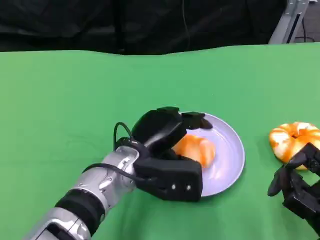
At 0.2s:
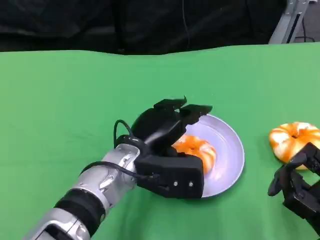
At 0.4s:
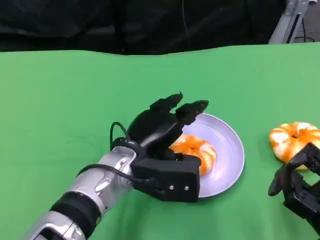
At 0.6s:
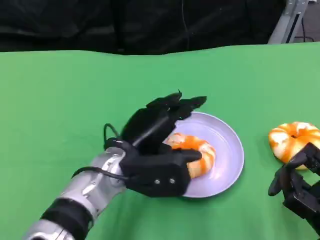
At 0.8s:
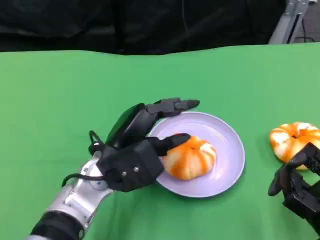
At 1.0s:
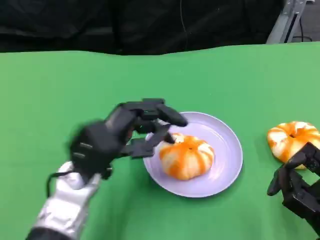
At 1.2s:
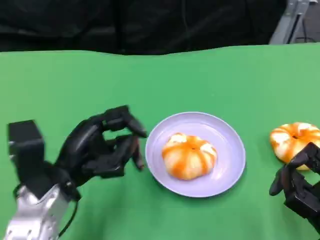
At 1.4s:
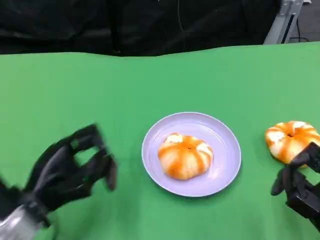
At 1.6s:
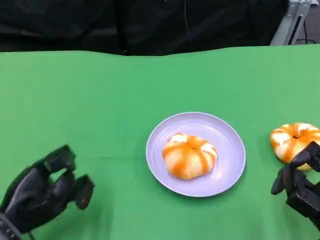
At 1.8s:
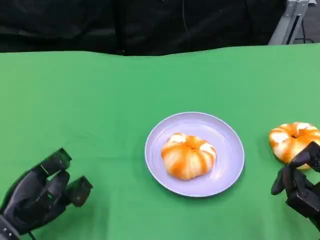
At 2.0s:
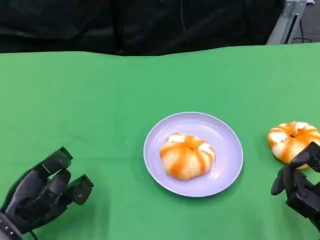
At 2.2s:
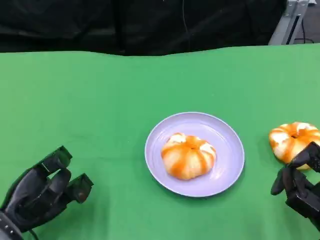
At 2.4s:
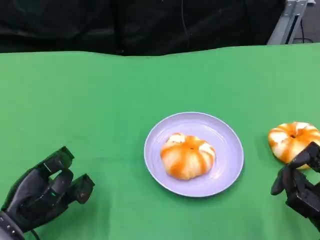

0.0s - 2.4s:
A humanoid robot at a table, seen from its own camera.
Task of the whole recording: Grasp the bread from the table and place it into the plate.
0.0s - 1.2s: The left hand is displaced to the left by approximately 10 cm.
1.2s - 2.4s: The left hand moves to the left and downward, approximately 10 cm.

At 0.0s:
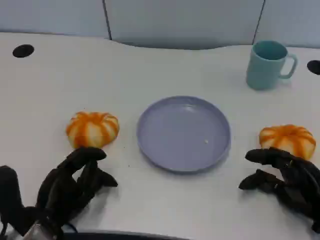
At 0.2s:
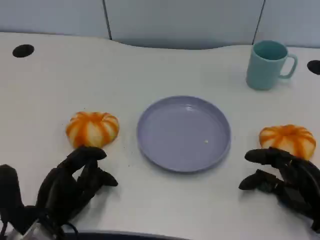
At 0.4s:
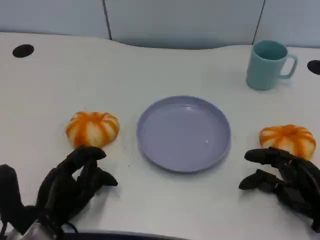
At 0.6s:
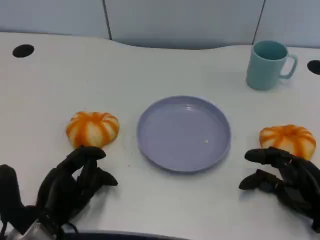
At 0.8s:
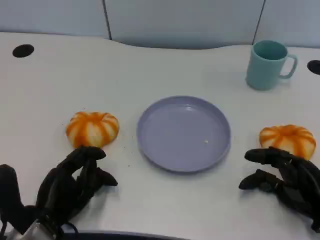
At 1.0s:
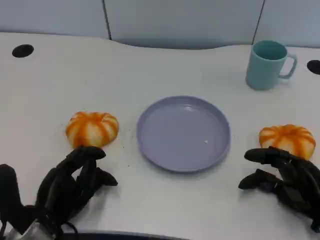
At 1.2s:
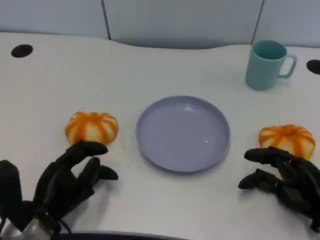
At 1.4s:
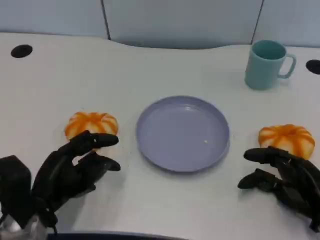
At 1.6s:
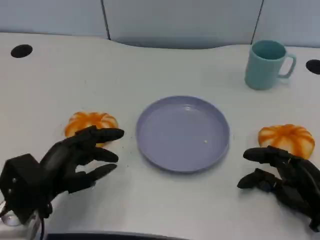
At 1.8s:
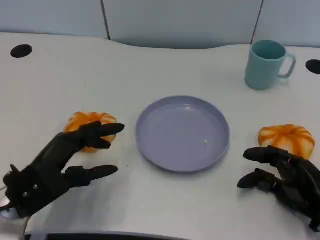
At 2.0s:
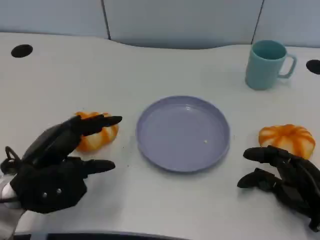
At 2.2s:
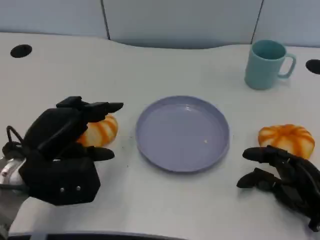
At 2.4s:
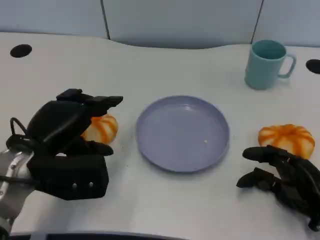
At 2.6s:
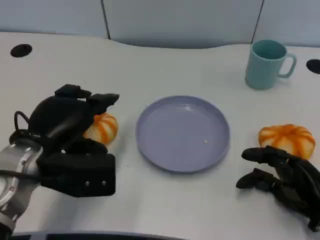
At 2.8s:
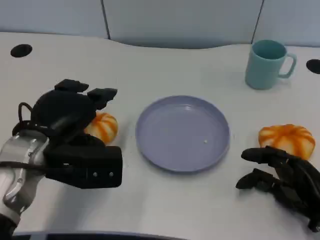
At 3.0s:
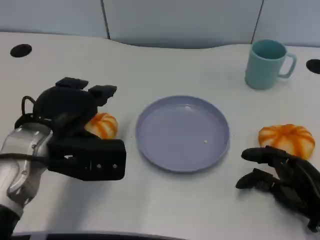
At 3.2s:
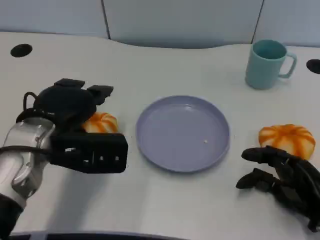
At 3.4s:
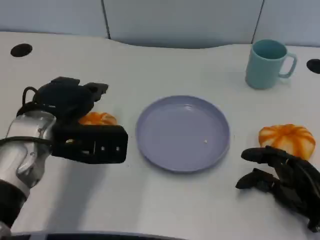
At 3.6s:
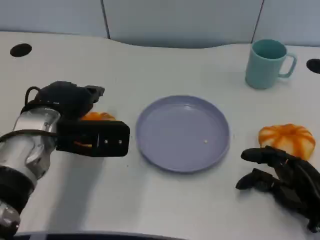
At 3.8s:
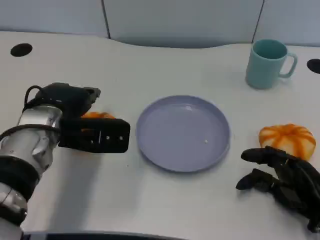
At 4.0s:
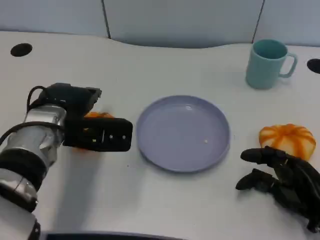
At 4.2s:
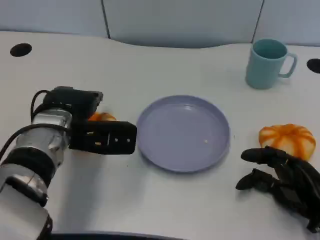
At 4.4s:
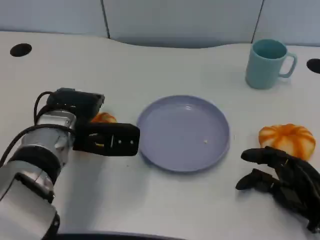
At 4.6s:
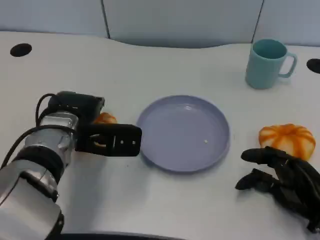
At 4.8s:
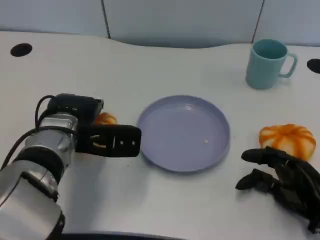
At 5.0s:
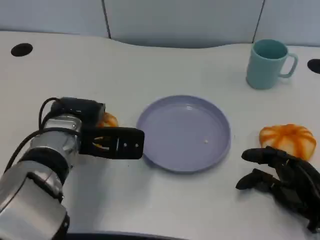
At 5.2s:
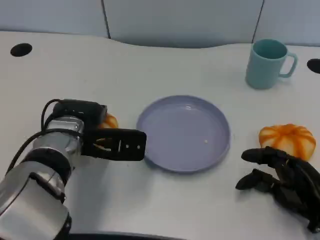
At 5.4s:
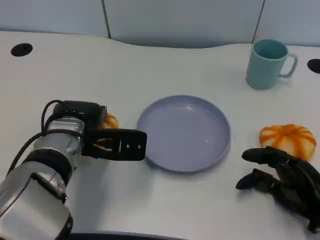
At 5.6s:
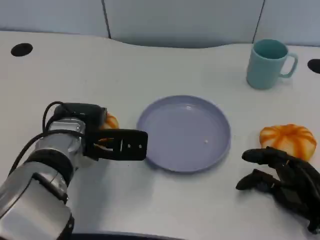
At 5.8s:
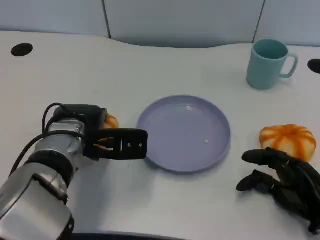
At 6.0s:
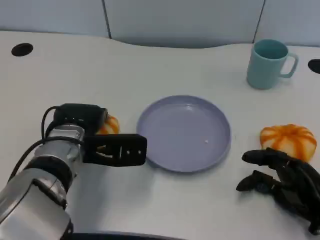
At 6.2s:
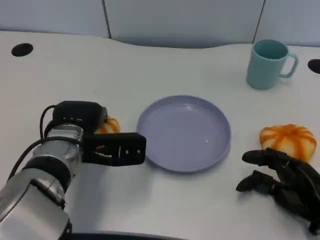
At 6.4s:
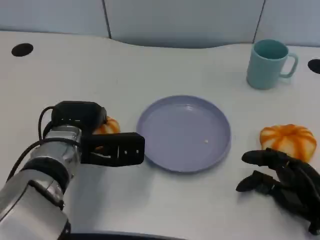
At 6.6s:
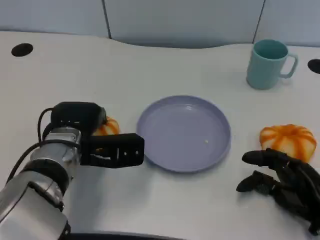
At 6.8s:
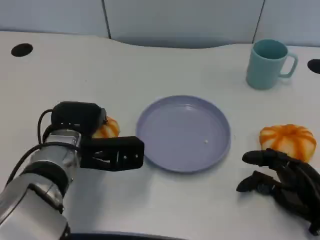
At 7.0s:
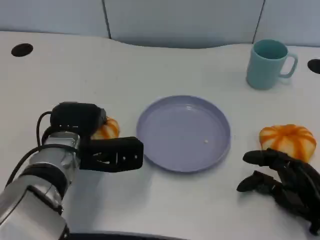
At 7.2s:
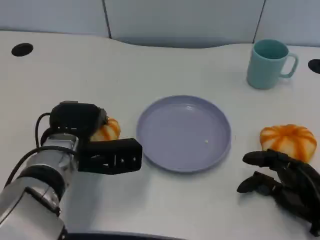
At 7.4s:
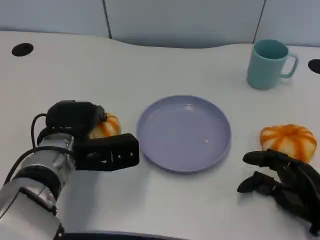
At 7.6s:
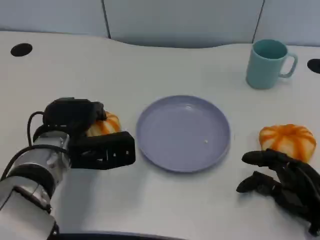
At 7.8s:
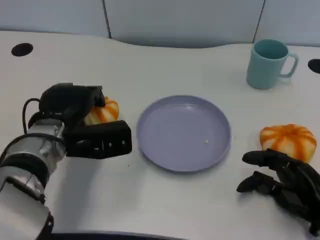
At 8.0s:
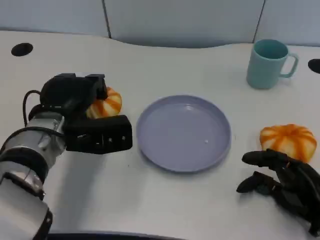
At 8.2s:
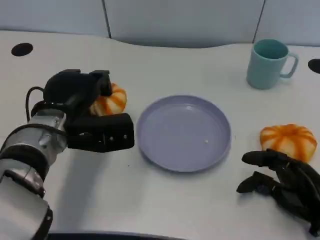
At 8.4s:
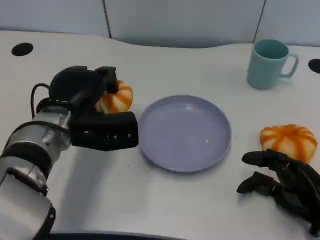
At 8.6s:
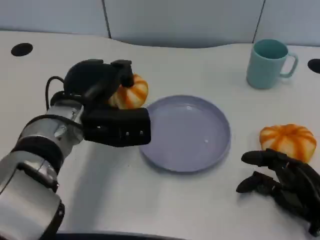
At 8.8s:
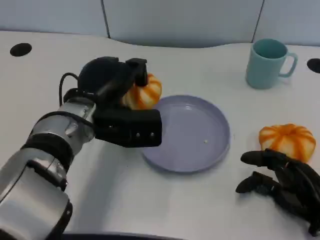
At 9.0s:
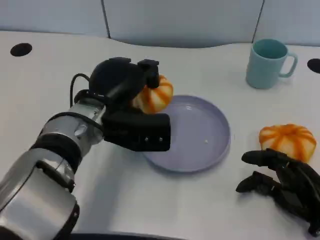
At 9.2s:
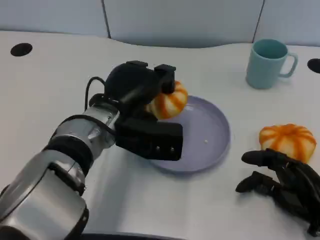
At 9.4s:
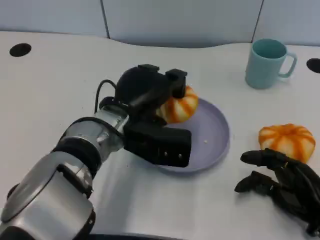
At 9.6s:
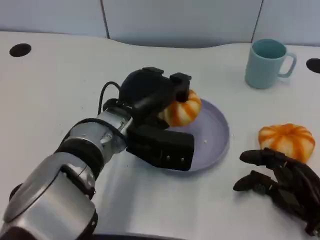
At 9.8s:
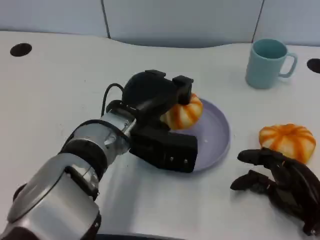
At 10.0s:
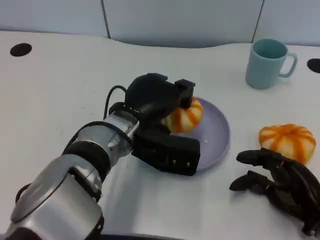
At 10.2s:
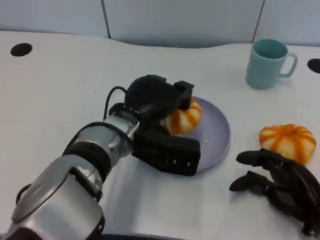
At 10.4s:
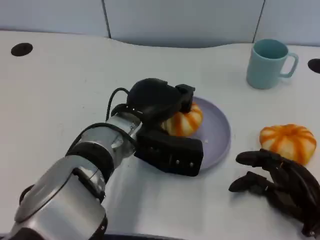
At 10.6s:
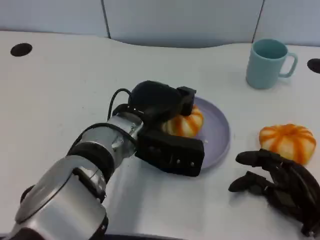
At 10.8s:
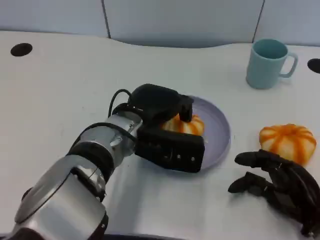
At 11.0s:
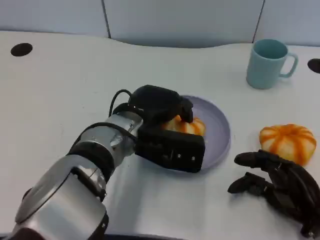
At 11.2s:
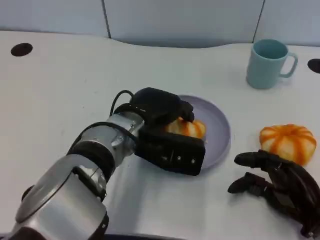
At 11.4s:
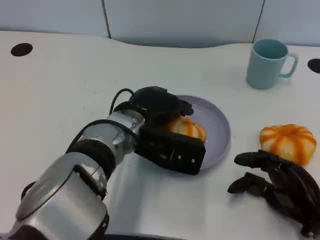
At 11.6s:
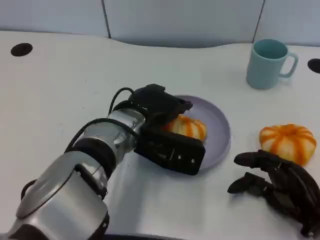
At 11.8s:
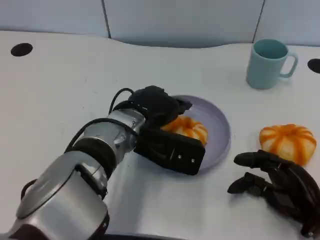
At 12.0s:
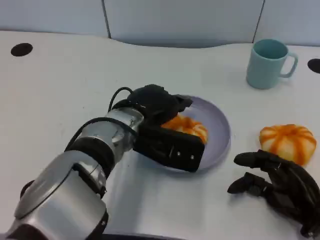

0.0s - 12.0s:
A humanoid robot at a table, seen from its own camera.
Task of the whole recording: Grasp the bread from the table and place it into the plate.
0.0s - 1.6s: The left hand moves upward, about 5 cm.
1.6s - 3.0s: The left hand goes roughly 10 cm upward.
3.0s - 4.4s: The left hand changes place by some 5 cm.
4.4s - 7.6s: The hands make only small movements.
7.6s - 9.0s: The left hand is displaced to the right by some 5 cm.
10.4s - 12.0s: The hands make only small movements.

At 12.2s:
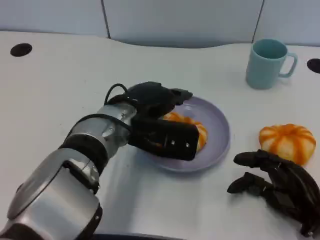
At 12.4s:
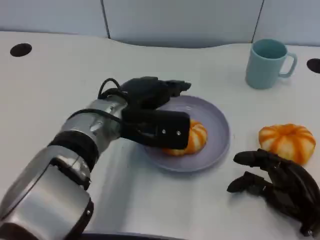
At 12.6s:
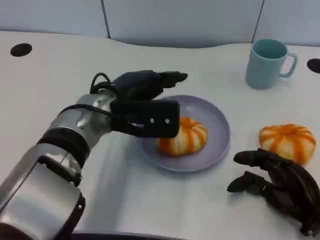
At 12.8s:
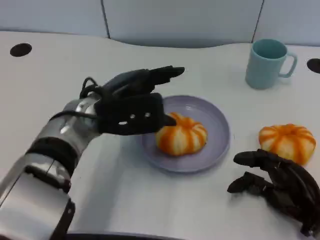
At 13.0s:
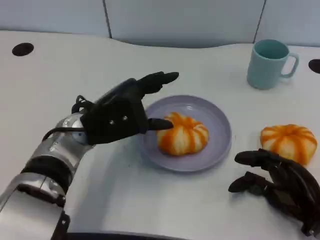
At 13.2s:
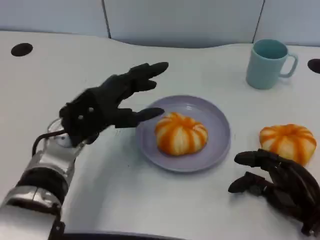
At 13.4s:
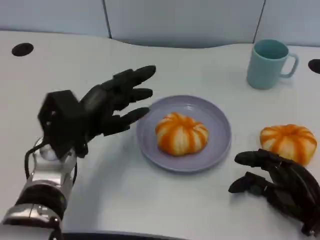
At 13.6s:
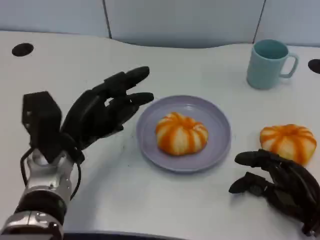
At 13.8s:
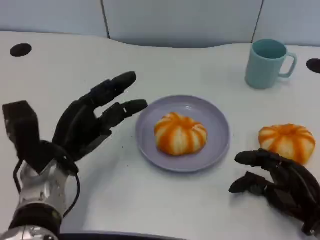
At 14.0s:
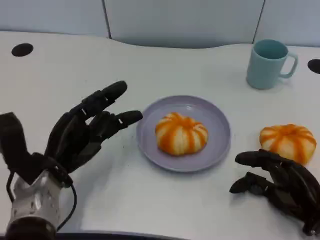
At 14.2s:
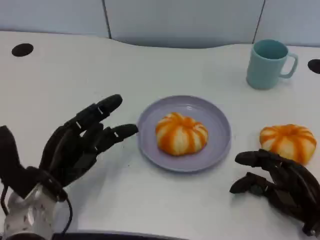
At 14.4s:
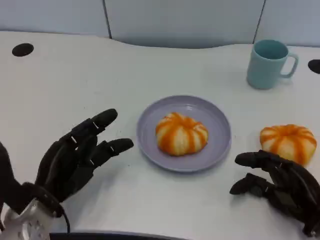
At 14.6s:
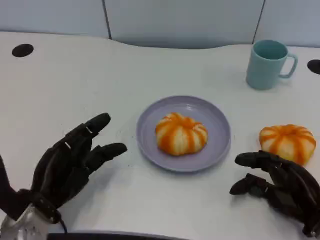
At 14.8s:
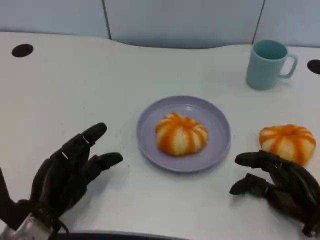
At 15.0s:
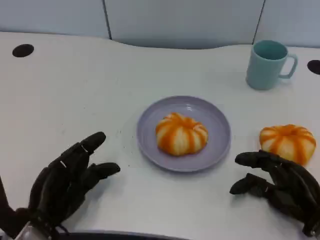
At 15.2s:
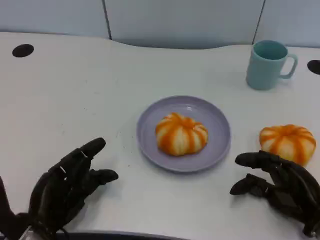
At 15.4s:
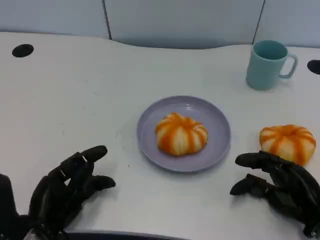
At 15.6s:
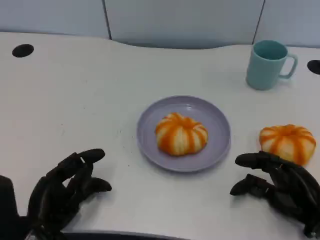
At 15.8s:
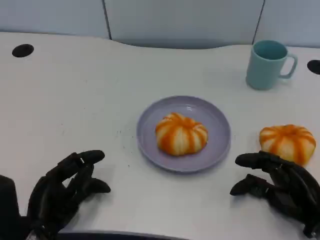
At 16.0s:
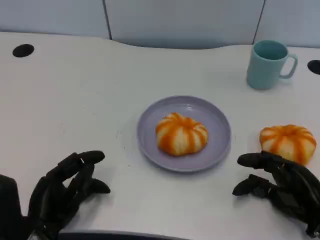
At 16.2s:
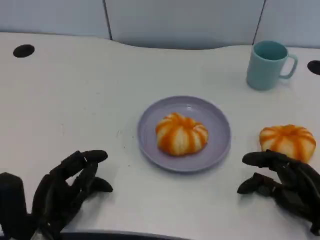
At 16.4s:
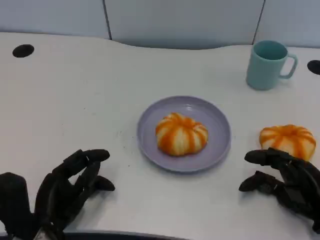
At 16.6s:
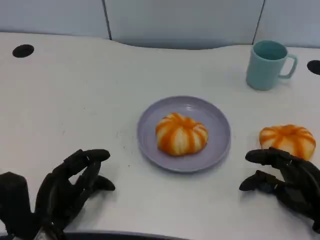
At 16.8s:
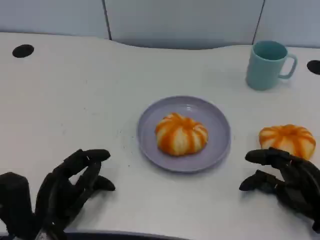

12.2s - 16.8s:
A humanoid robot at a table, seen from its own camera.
Task of the whole recording: Grasp the bread from the table and place it into the plate.
12.2s - 13.8s: The left hand shifts some 15 cm to the left and downward.
13.8s - 15.2s: The left hand is displaced backward and downward by some 10 cm.
15.2s - 16.8s: The hands make only small movements.

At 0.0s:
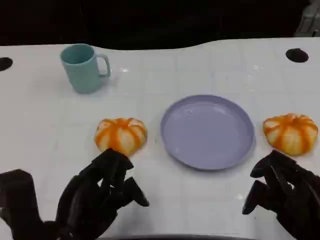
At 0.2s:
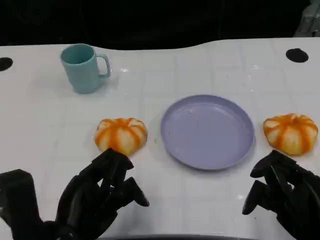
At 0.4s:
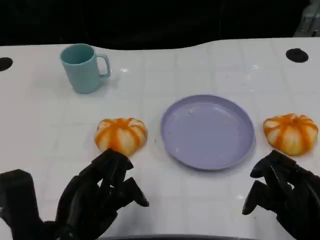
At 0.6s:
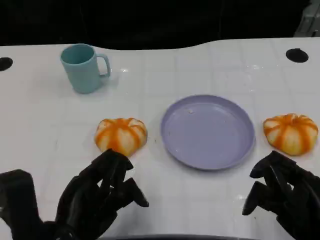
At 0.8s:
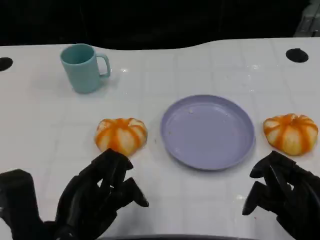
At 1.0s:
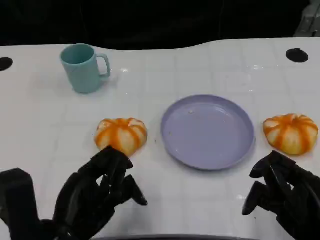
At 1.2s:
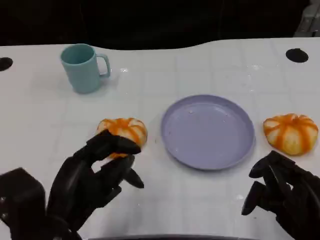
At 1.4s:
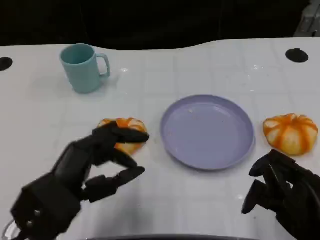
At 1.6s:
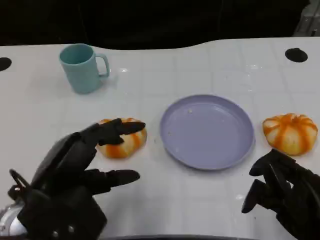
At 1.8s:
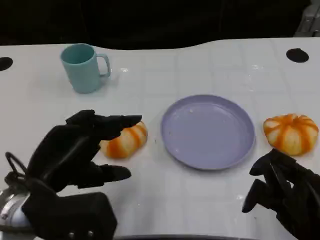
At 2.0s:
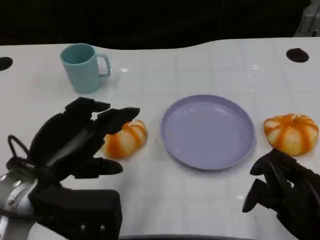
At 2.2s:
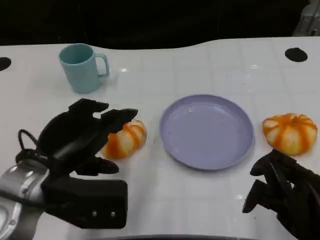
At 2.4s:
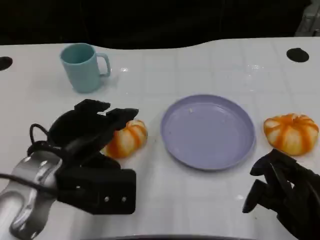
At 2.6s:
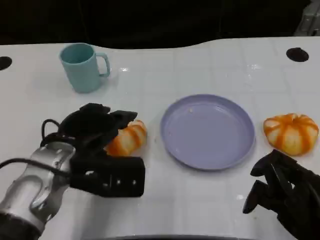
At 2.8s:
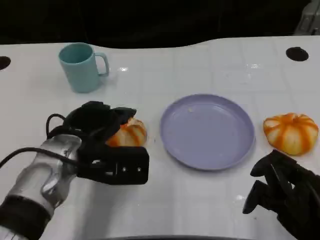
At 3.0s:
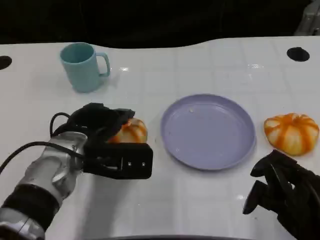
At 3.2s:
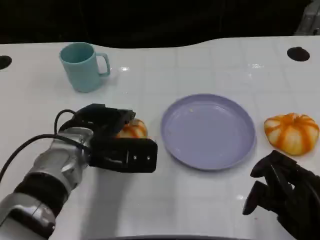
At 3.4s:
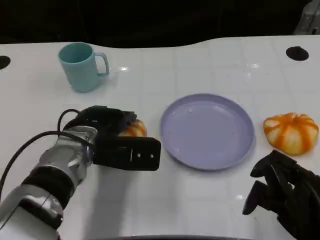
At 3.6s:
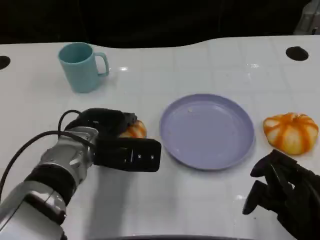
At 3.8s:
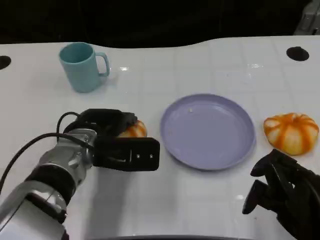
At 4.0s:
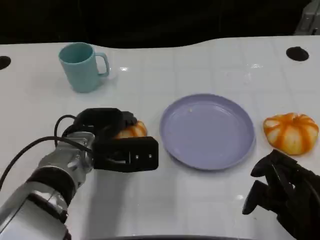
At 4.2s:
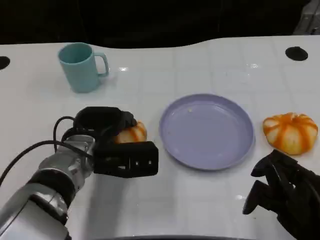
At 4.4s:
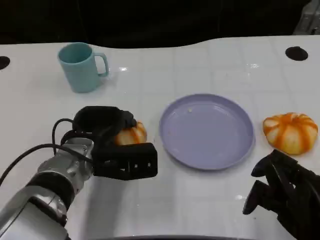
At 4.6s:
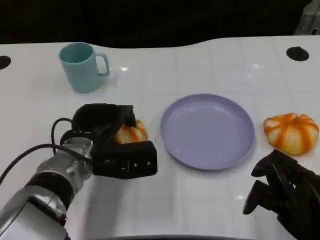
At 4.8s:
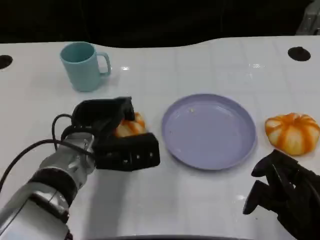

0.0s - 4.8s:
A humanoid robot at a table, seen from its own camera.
Task of the whole recording: Grasp the bread from the table and place it into the plate.
0.0s - 1.6s: The left hand changes place by about 5 cm.
1.6s - 3.2s: The left hand moves forward and to the right, about 15 cm.
3.2s - 4.8s: The hands move only a little.
